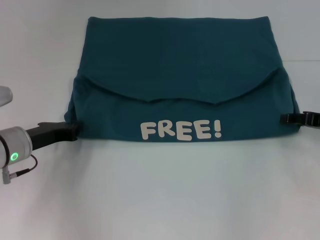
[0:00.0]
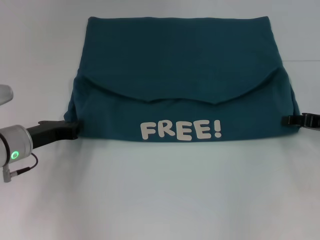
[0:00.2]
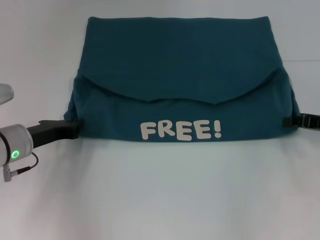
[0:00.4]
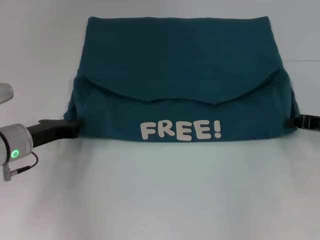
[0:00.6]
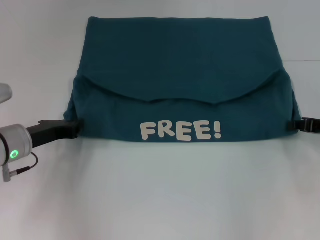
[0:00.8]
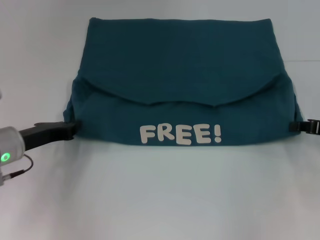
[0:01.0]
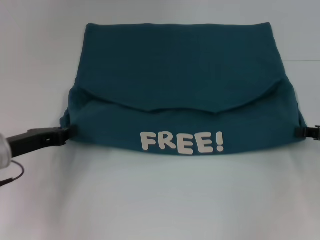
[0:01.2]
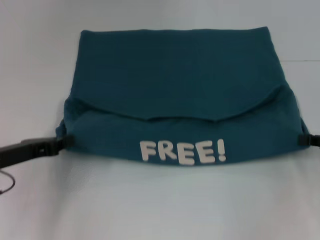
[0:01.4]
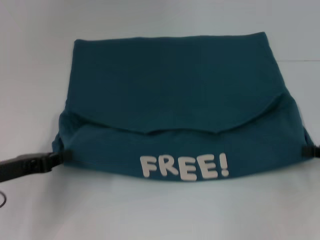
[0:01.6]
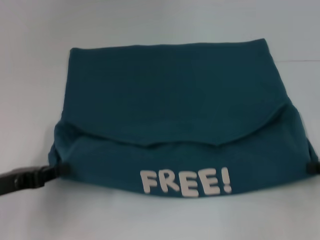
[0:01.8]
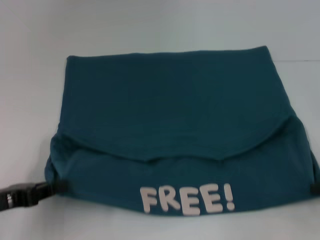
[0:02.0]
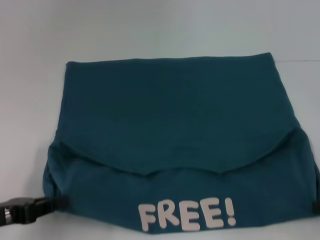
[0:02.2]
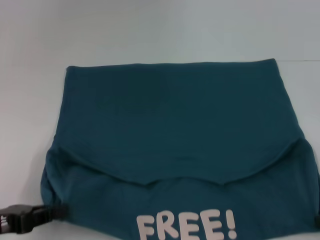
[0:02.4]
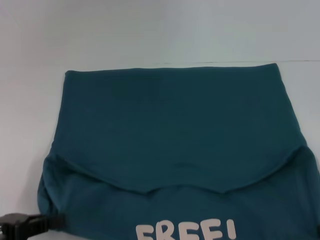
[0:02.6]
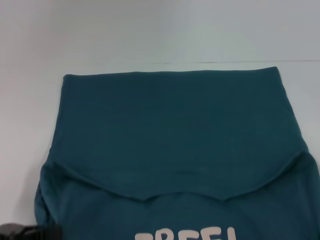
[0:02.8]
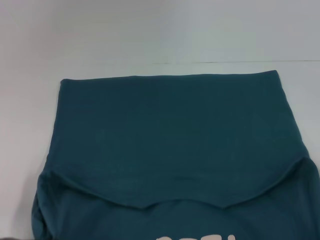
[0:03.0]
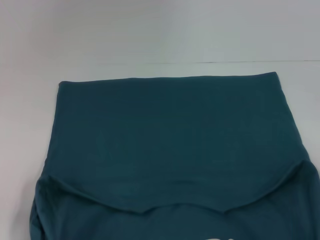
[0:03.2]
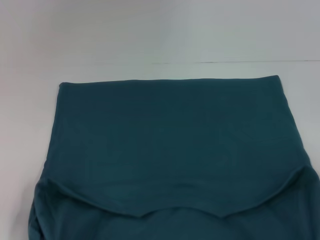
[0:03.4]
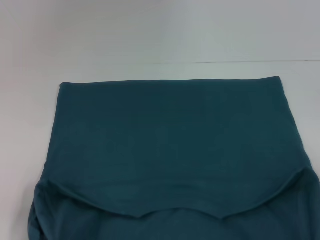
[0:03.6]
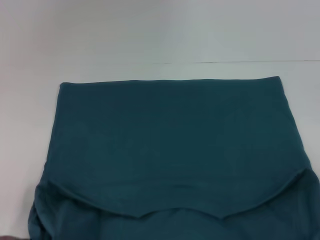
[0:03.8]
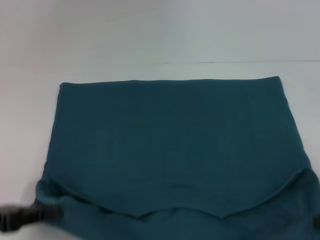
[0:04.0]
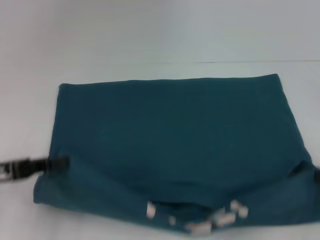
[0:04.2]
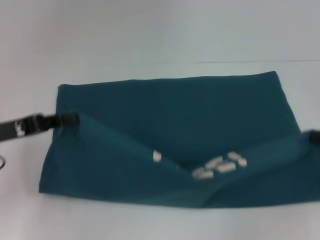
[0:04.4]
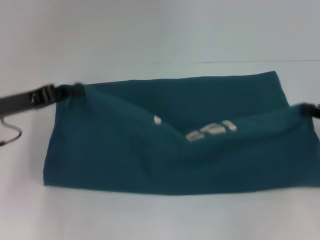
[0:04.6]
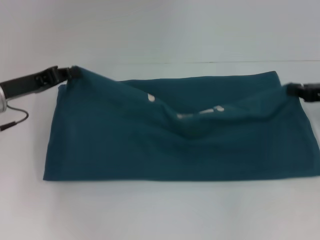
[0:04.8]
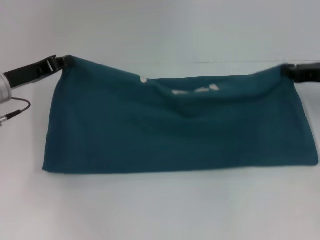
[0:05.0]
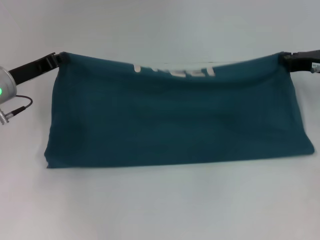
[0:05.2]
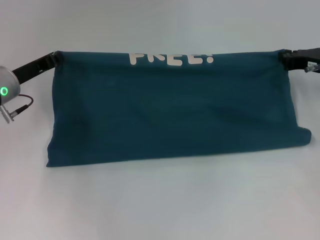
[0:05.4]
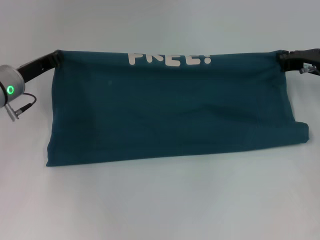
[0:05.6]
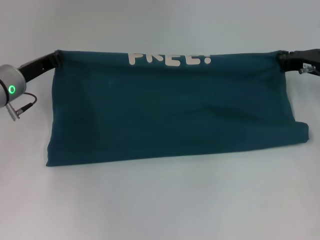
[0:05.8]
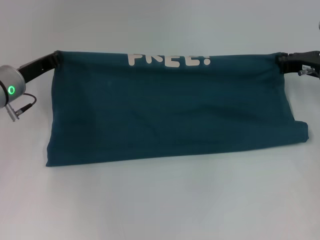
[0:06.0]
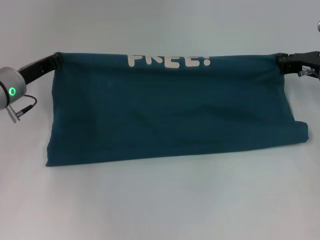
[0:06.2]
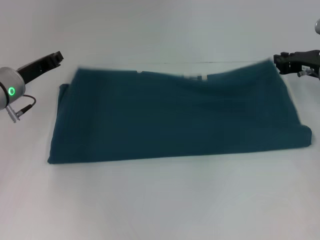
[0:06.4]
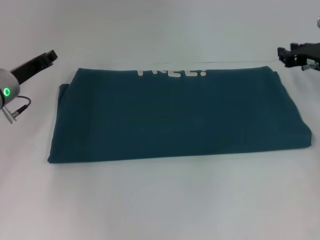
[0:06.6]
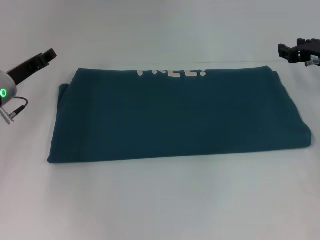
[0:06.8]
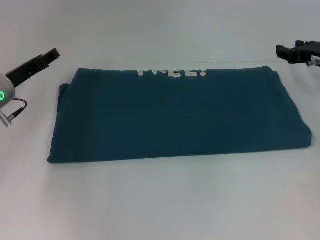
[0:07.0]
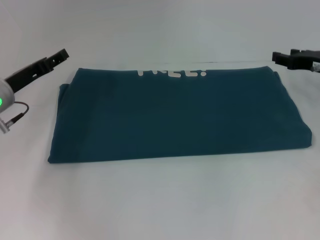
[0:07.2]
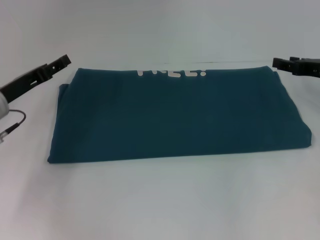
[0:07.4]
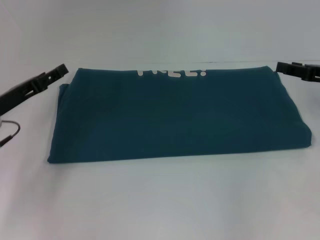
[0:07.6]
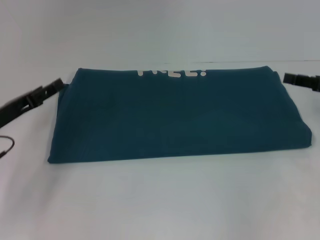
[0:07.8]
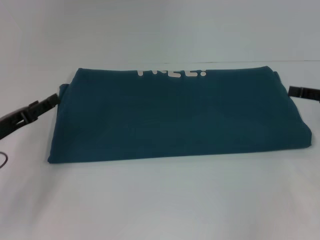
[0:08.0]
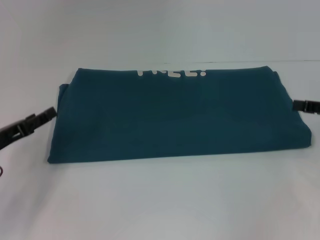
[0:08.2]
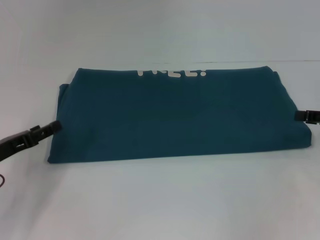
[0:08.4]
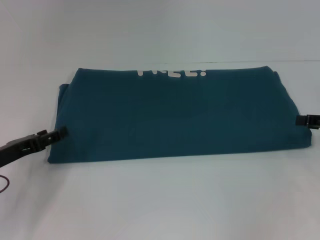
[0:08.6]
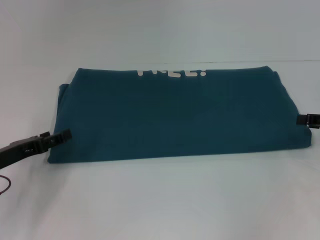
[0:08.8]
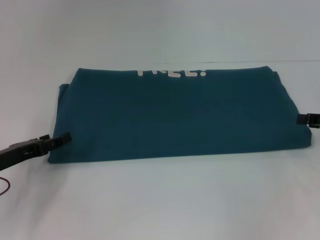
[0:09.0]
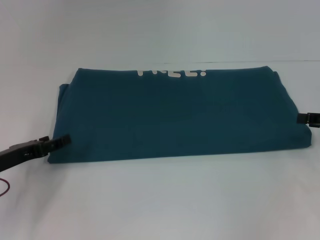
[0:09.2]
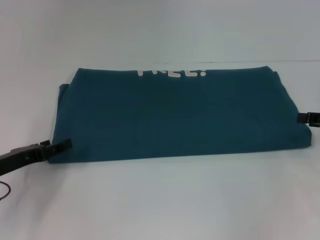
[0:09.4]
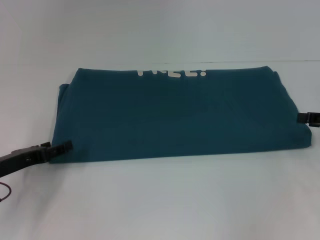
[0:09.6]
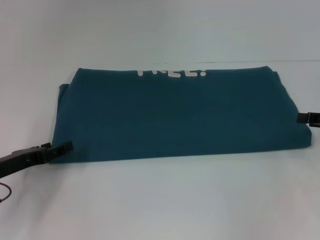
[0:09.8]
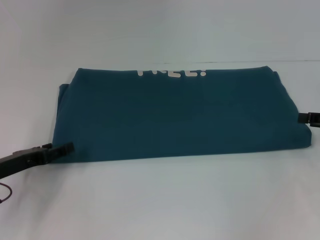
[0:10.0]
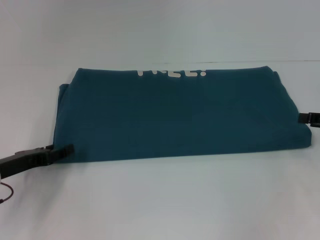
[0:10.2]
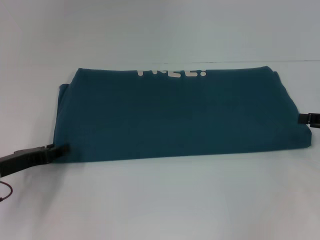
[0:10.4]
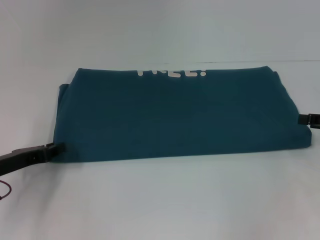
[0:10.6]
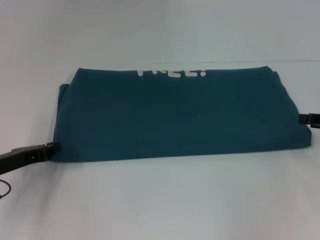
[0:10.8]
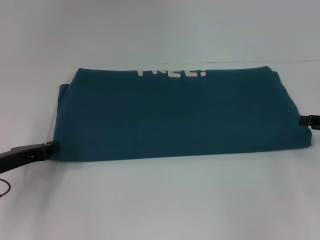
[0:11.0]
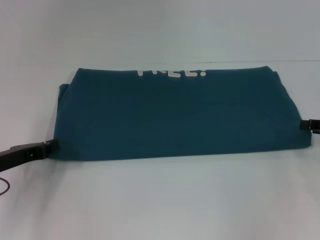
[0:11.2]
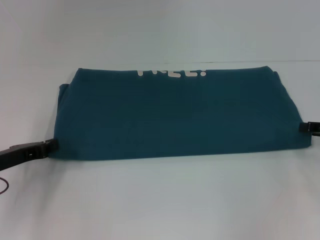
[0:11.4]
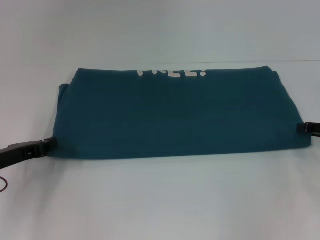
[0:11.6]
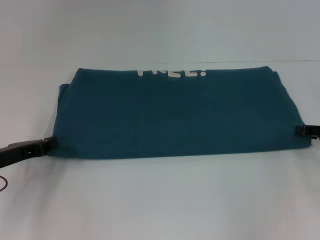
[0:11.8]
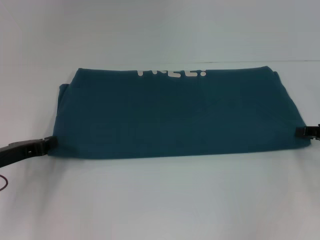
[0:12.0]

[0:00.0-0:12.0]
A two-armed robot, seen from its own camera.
Step, 0:00.0 to 0:03.4: Pull the clothes with your left hand.
Step, 0:00.0 to 0:03.4: Pull the clothes with your right hand.
Step, 0:03.6 to 0:06.6: Fold the clothes to the right.
0:00.0 to 0:01.6: Both grippers travel together backward, some 5 cm. The right gripper closes.
0:01.6 to 0:03.0: Both grippers travel together backward, approximately 10 cm.
0:03.0 to 0:04.4: Both grippers move forward, approximately 10 cm.
0:04.4 to 0:06.0: The right gripper goes some 15 cm forward and to the left, while the left gripper goes about 10 cm forward.
0:06.0 to 0:07.6: Both grippers travel together backward, about 5 cm. The right gripper opens. The left gripper opens.
0:07.6 to 0:09.0: The left gripper moves backward, approximately 5 cm. Meanwhile the right gripper moves about 5 cm.
0:09.0 to 0:10.4: The grippers make only small movements.
0:10.4 to 0:12.0: The left gripper closes.

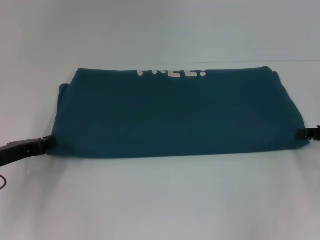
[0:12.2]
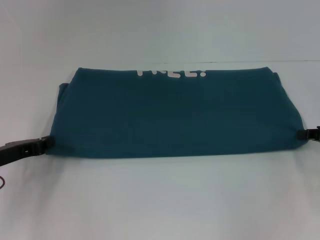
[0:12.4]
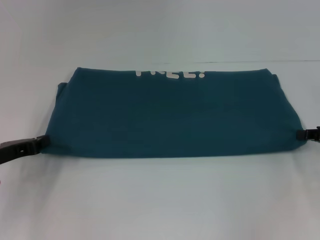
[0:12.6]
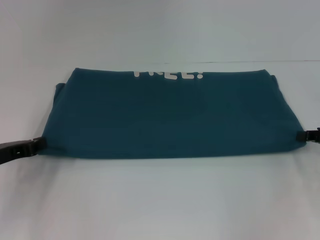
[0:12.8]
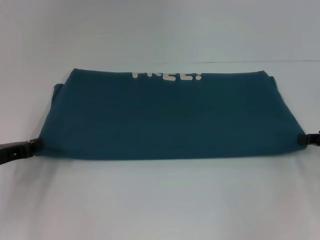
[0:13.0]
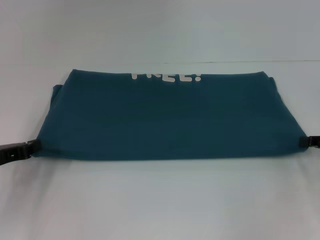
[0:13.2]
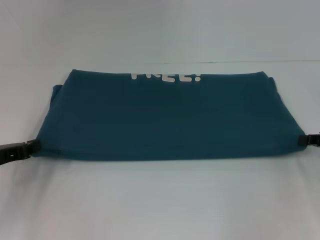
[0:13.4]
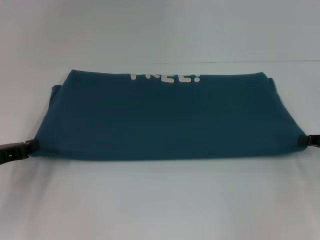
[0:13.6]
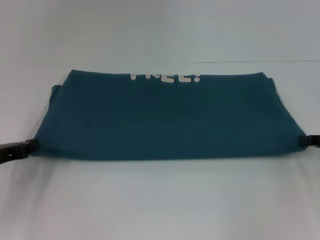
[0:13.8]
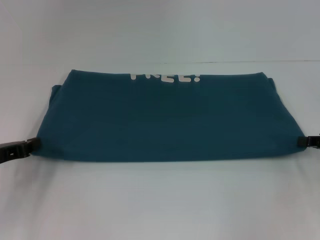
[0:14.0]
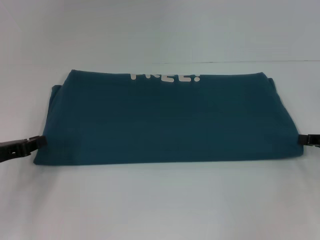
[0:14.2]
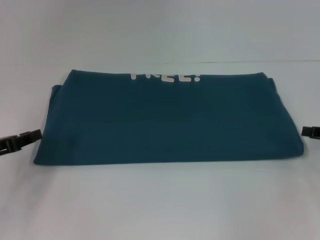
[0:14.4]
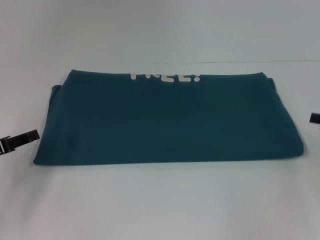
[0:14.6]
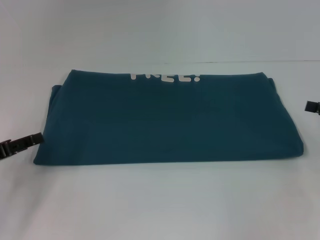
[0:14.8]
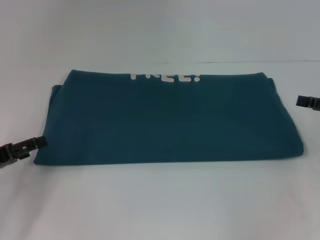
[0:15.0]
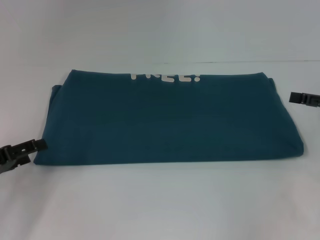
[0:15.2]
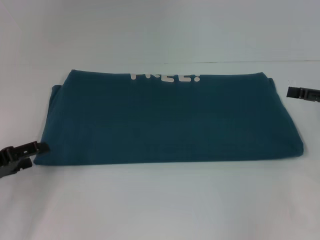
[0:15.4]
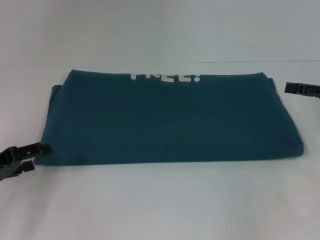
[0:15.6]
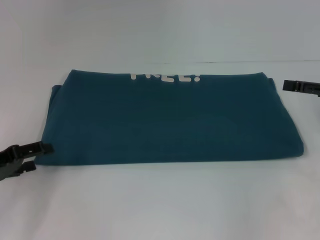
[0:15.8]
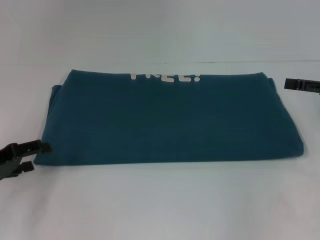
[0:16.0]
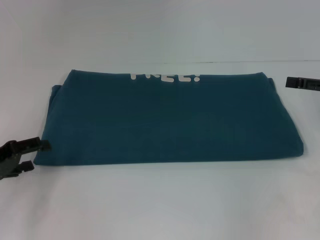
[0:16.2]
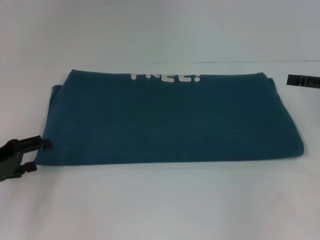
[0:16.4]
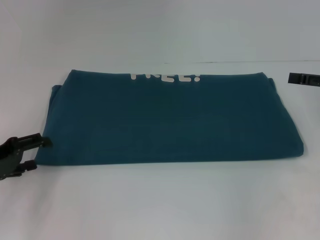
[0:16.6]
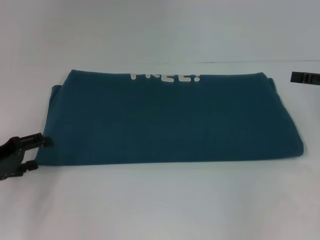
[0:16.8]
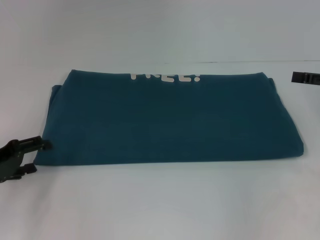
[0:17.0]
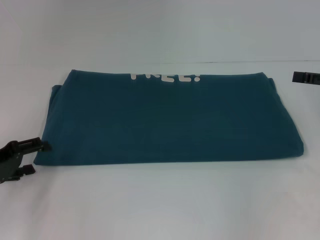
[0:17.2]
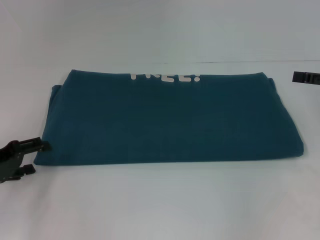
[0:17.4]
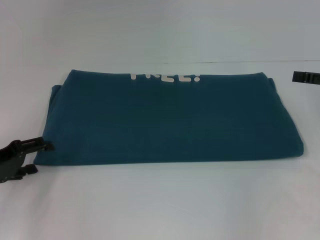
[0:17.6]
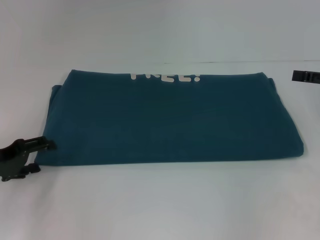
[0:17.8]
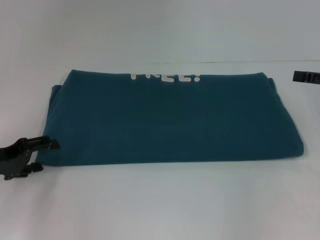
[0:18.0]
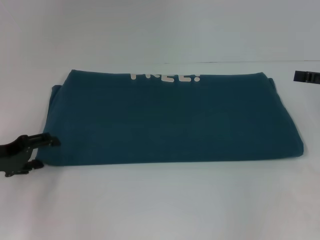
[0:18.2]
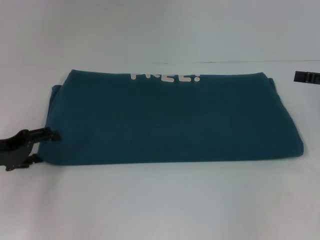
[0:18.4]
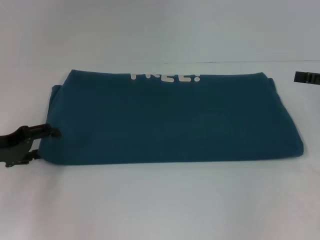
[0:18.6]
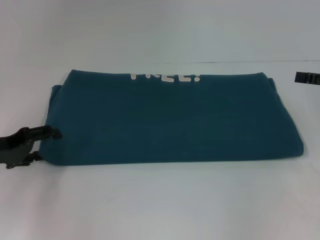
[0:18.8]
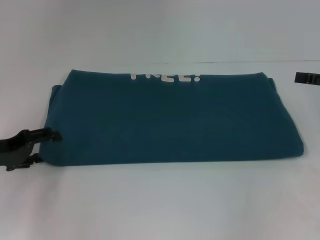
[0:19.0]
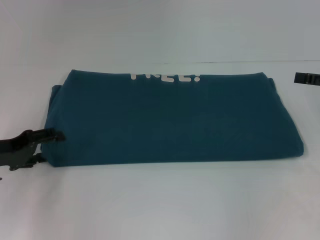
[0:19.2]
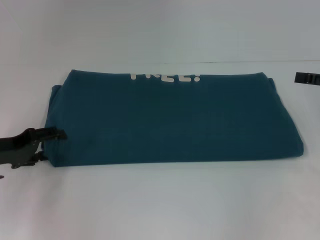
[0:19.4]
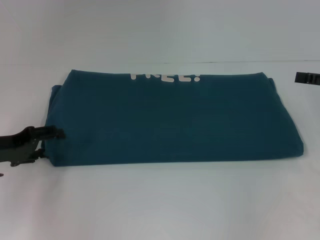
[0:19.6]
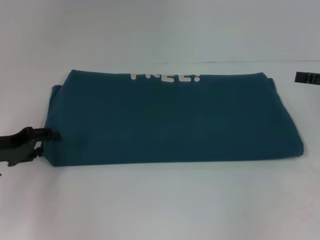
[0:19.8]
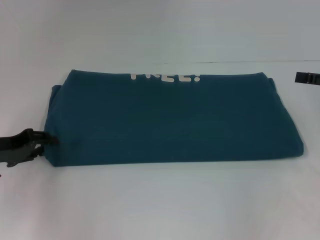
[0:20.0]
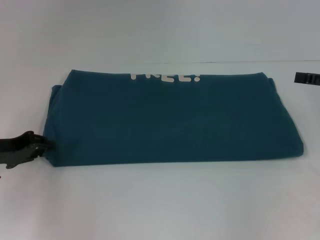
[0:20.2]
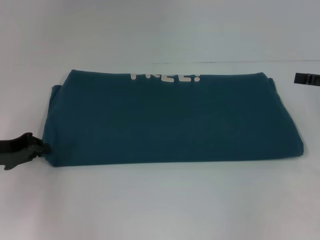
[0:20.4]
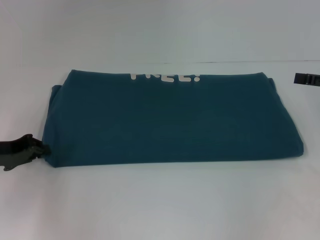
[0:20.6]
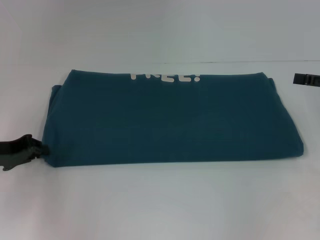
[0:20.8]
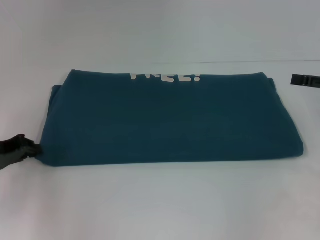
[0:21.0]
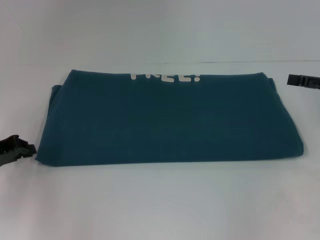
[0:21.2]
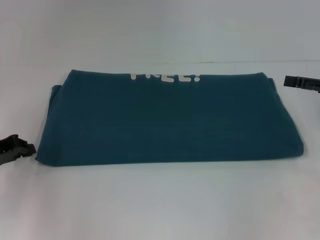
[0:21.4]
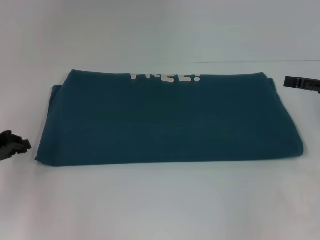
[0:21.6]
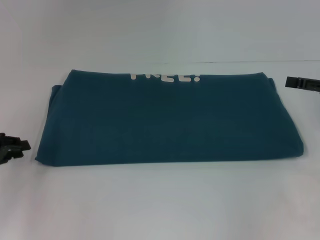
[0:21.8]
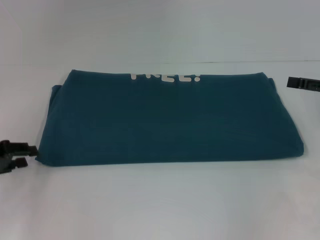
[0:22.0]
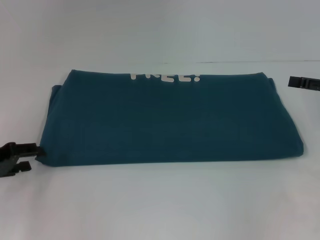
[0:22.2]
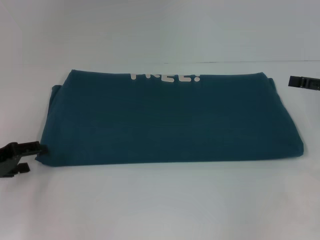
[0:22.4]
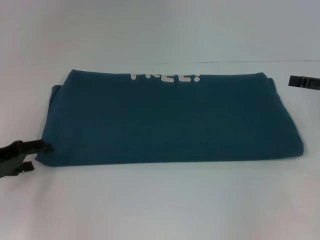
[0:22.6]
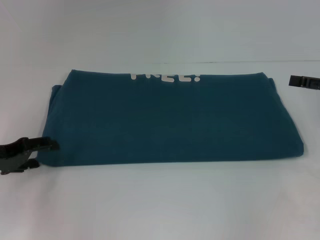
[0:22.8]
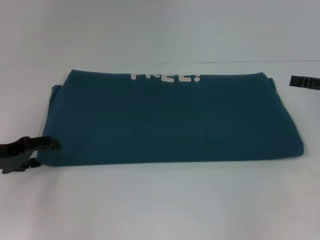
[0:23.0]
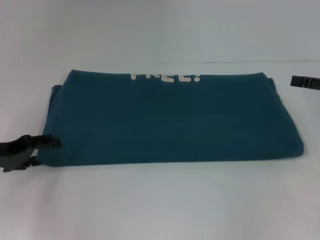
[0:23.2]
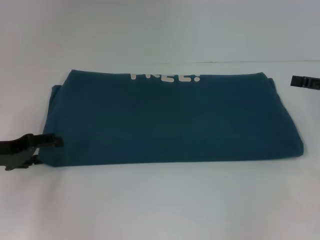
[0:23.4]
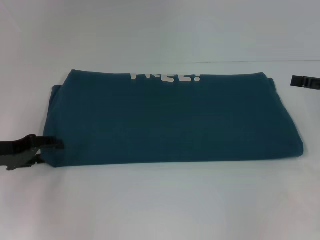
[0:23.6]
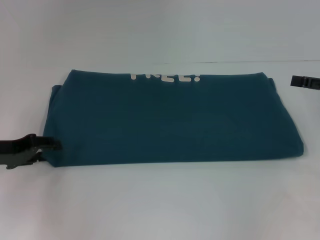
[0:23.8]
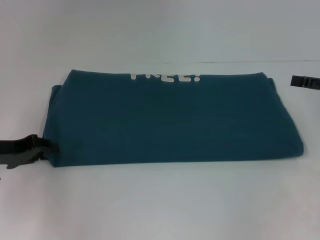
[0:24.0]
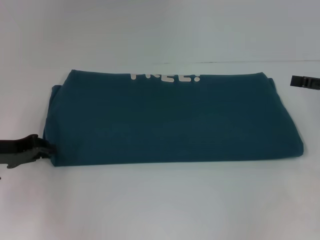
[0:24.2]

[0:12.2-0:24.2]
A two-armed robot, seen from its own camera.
0:12.2 to 0:13.8: The right gripper closes up.
0:13.8 to 0:15.2: The right gripper shifts by about 5 cm, and opens. Meanwhile the left gripper opens.
0:15.2 to 0:19.8: The grippers stay close to where they were, moving slightly.
0:19.8 to 0:21.2: The left gripper closes up.
0:21.2 to 0:22.6: The left gripper opens its fingers.
0:22.6 to 0:24.2: The left gripper closes.
